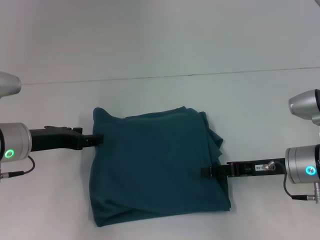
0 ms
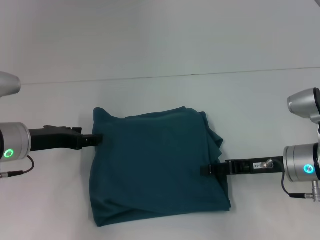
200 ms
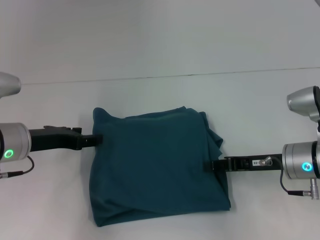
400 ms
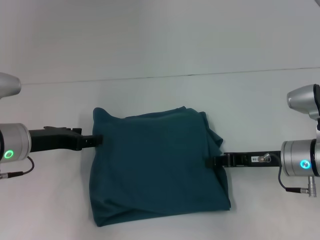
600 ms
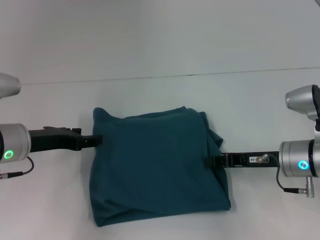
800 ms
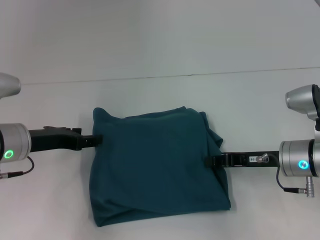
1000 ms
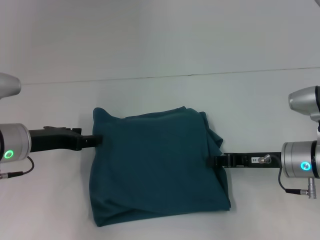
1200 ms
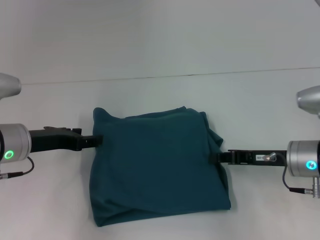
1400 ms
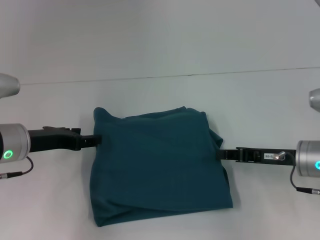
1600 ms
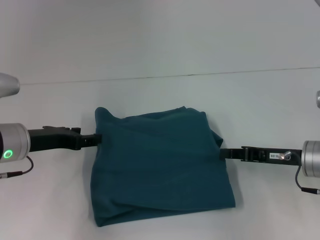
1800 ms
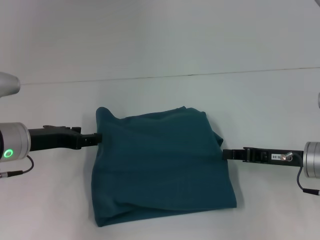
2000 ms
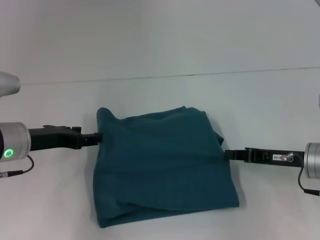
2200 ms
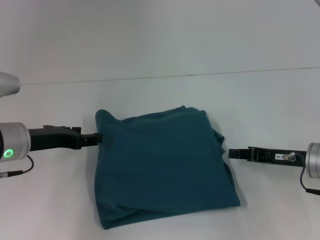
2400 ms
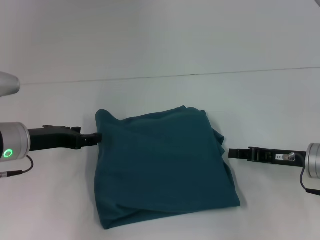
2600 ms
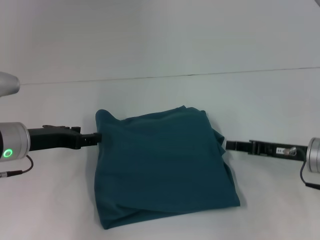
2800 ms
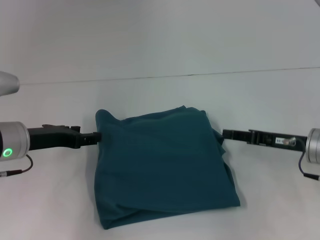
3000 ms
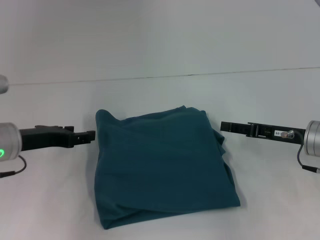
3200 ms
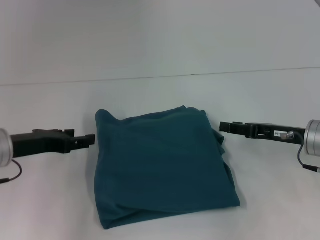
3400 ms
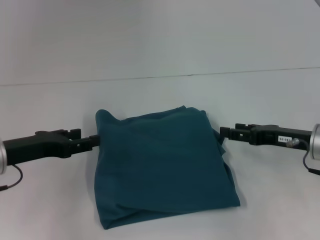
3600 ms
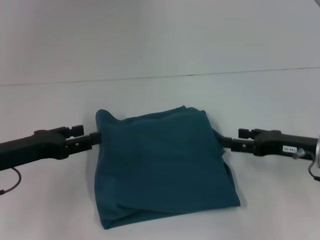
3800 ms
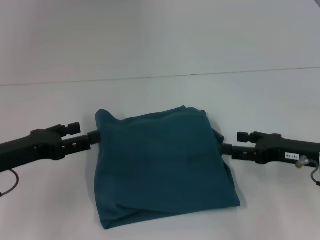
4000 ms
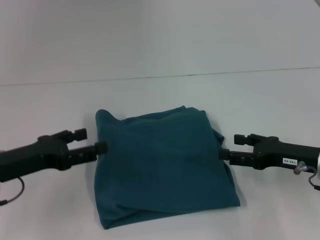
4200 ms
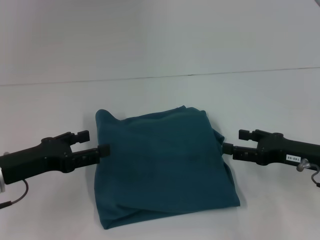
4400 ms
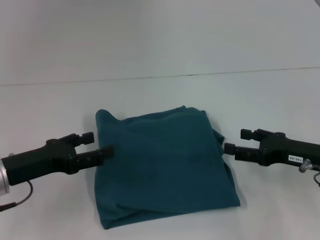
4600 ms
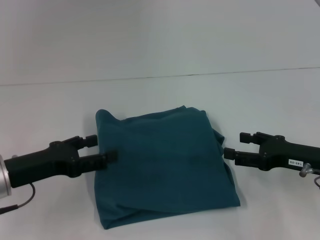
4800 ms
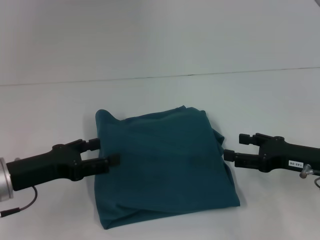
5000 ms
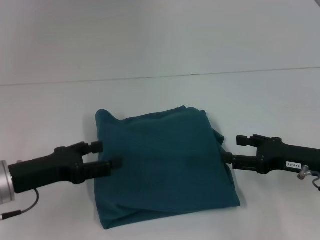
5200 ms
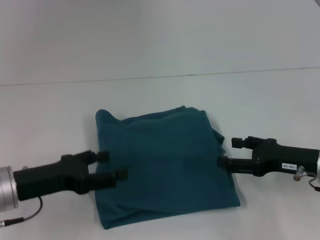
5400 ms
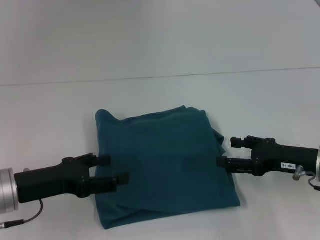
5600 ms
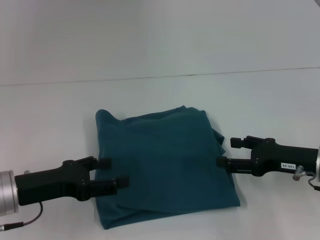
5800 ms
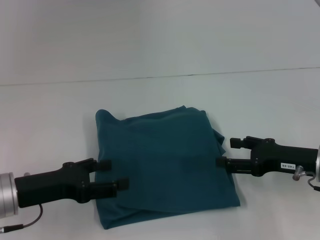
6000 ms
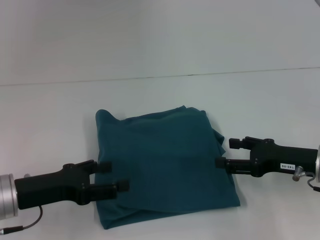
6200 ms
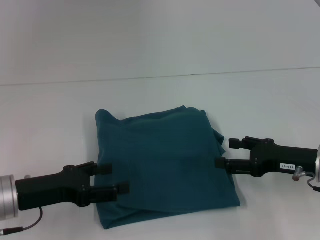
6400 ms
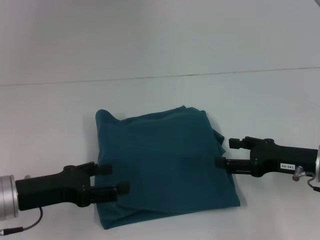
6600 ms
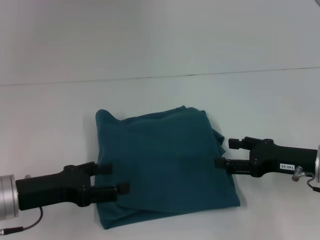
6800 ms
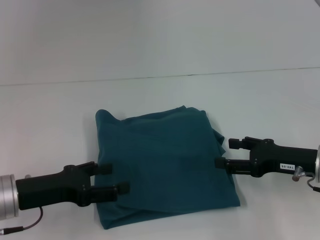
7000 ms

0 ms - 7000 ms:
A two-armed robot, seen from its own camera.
0 ms - 1400 ms: The right gripper closes up.
1400 ms - 2800 ms: The grippers stay close to where they were, moving slightly.
2800 ms - 4200 ms: The left gripper heads backward, covering some 5 cm; the right gripper opens up.
4200 ms - 5600 ms: There are only small adjustments of the grippers.
5600 ms - 7000 ms: Both grippers stay put.

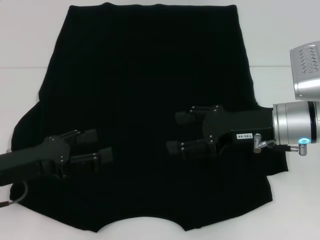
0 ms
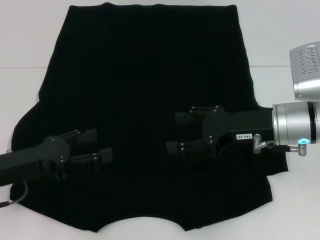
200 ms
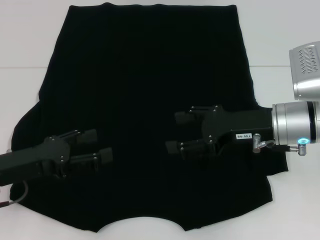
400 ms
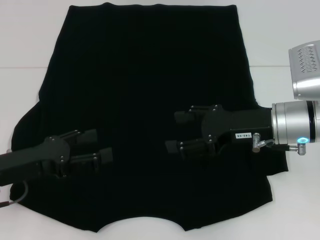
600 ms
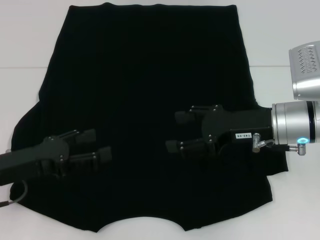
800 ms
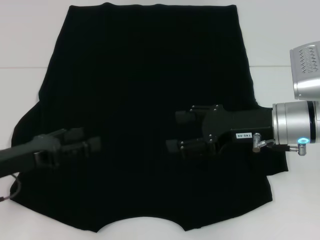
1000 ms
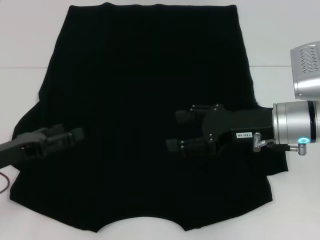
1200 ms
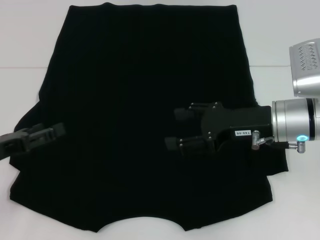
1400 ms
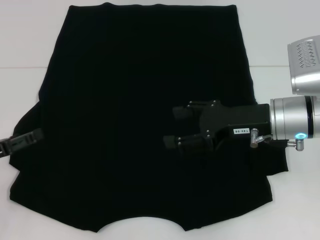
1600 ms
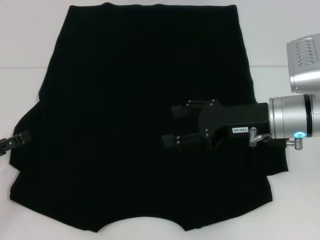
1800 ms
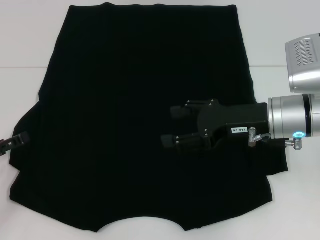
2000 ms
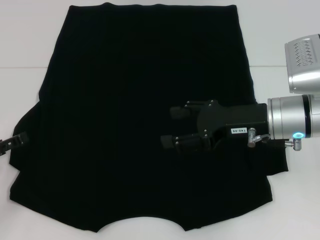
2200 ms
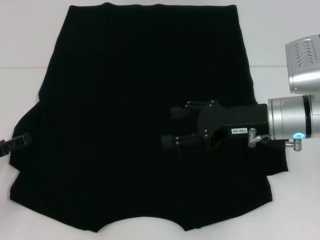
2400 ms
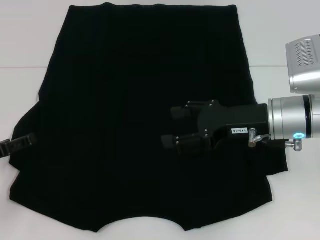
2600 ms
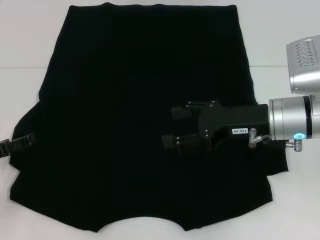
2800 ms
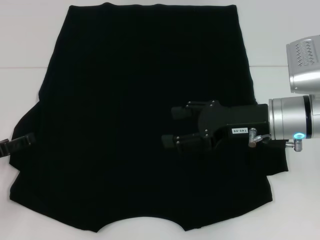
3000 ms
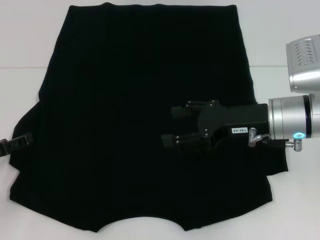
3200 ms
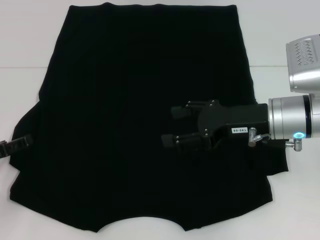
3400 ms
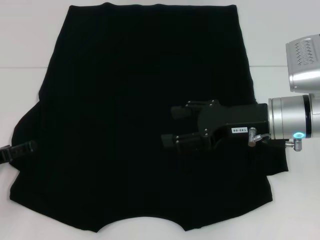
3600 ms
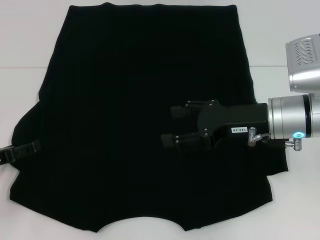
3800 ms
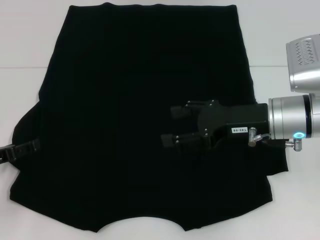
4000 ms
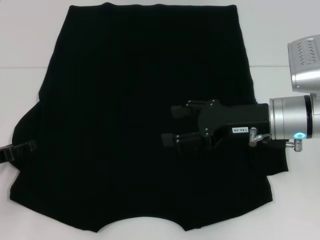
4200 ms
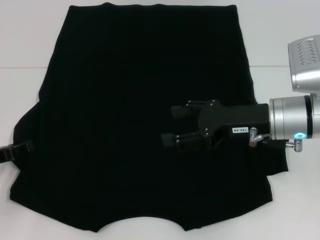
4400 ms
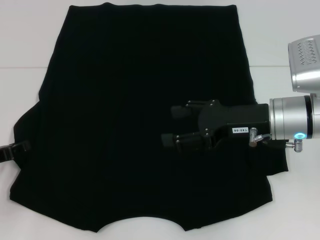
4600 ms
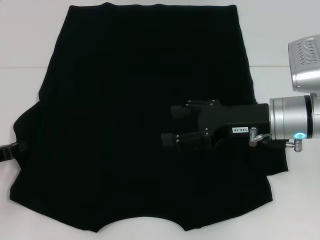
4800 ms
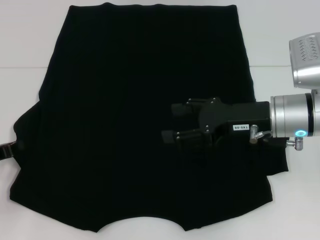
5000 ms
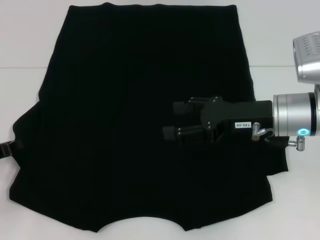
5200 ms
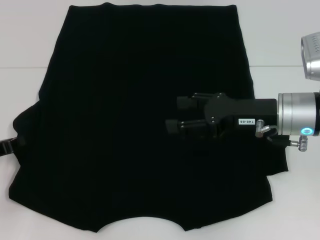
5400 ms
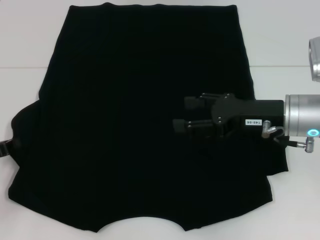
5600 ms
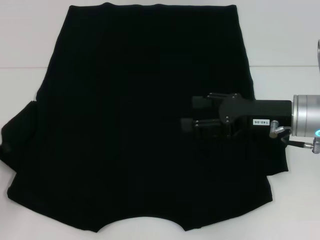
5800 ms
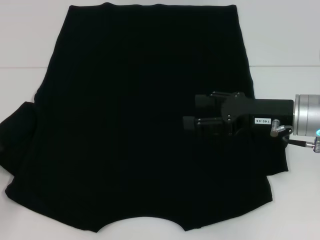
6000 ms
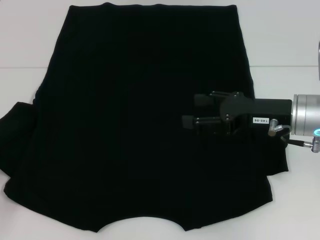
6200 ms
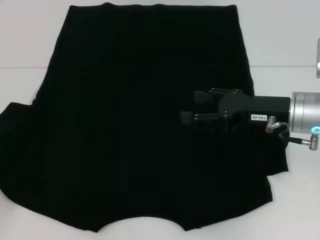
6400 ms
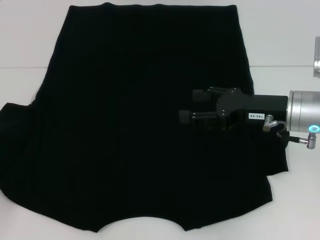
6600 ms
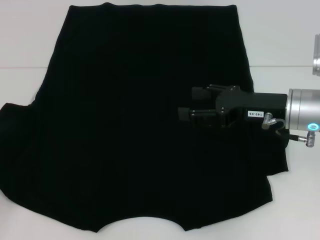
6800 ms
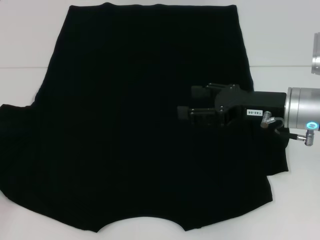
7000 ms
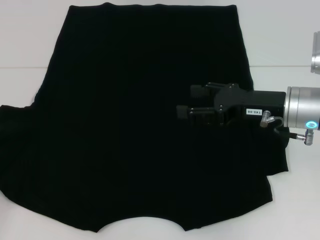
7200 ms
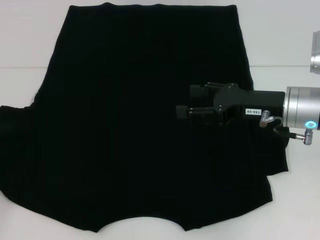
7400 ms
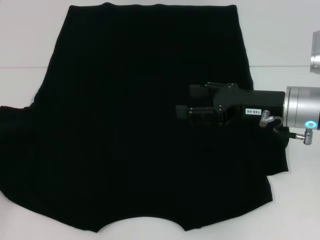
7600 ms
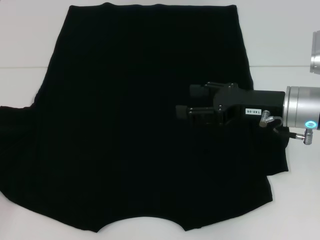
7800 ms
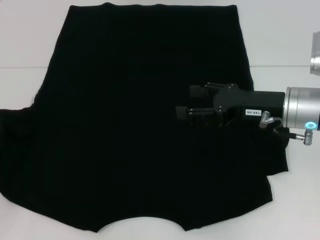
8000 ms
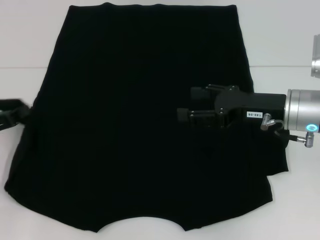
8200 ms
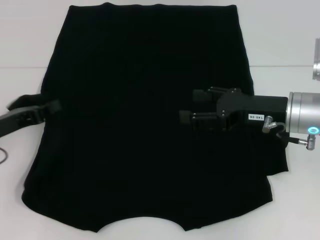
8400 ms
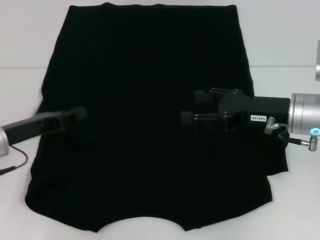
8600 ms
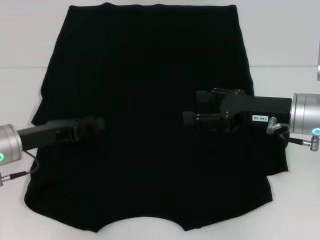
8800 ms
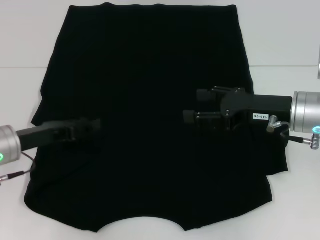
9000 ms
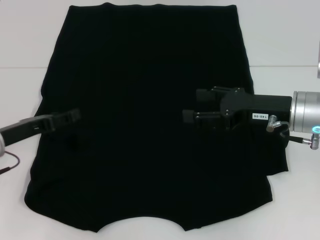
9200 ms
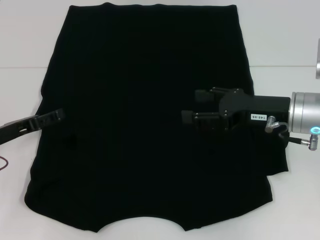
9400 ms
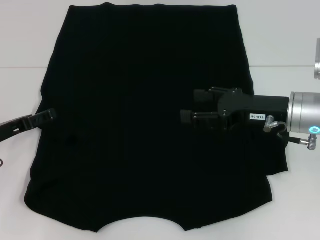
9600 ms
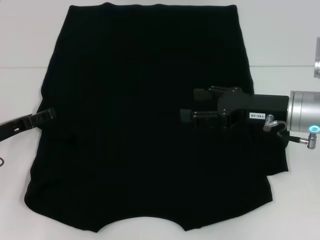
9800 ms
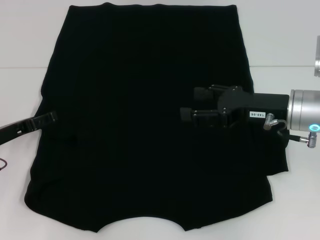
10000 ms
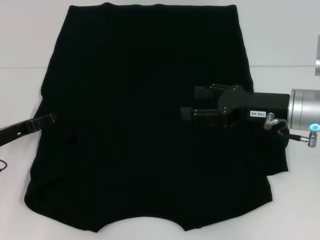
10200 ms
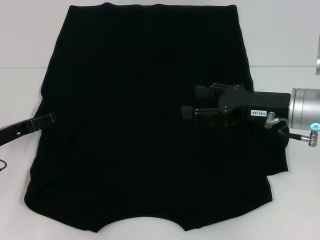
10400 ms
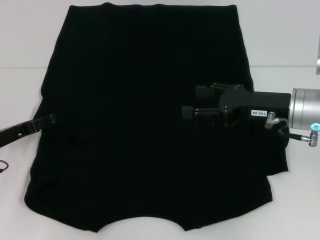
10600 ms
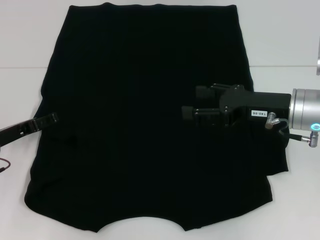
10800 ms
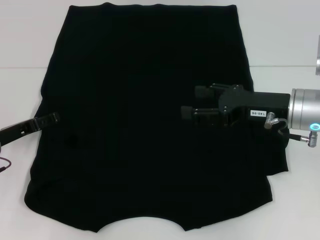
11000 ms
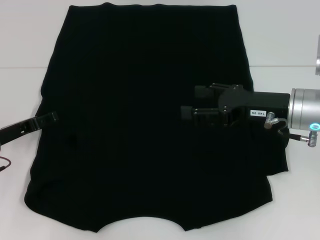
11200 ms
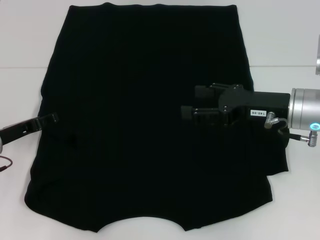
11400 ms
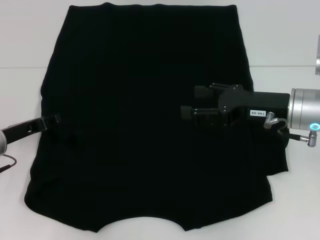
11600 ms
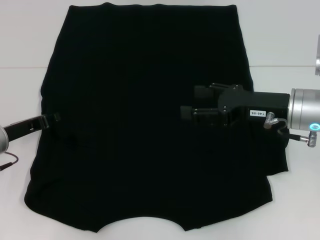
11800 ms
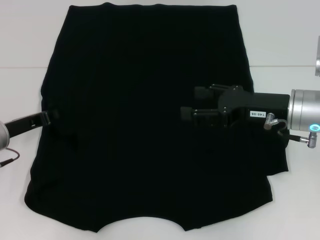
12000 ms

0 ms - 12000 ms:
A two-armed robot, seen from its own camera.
Step, 0 ms - 9000 ms: Fold the bottom left sleeve with your left hand.
0 ms - 1600 ms: The left gripper moves to the left, roughly 5 cm.
1600 ms - 3000 ms: The grippers move only a little.
3000 ms - 4400 ms: Both grippers stay about where they are.
4400 ms - 6000 ms: The left gripper closes up.
6000 ms - 7600 ms: The grippers move only a little.
7600 ms - 9000 ms: The left gripper travels to the right and forward by some 15 cm, and opens its fingers.
9000 ms - 10400 ms: The left gripper changes place by about 5 cm, and opens.
10400 ms - 12000 ms: The left gripper closes its fingers.

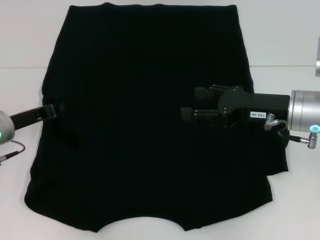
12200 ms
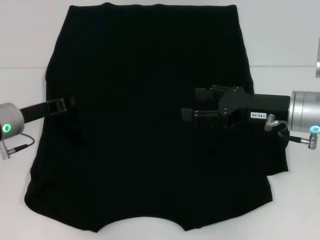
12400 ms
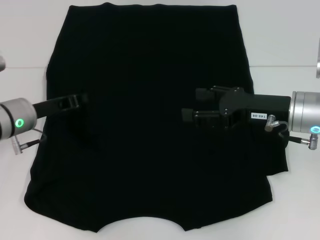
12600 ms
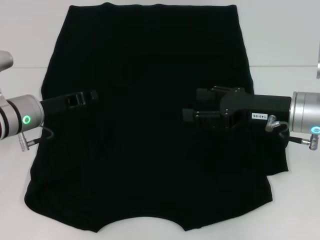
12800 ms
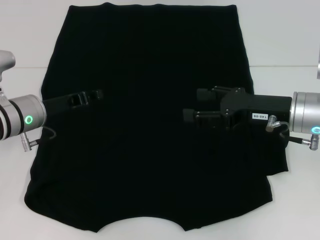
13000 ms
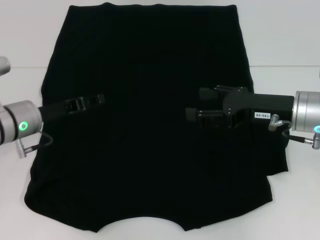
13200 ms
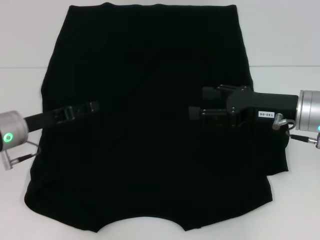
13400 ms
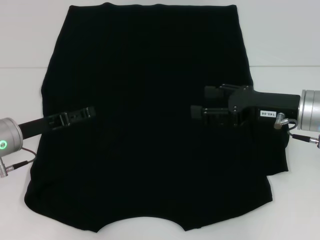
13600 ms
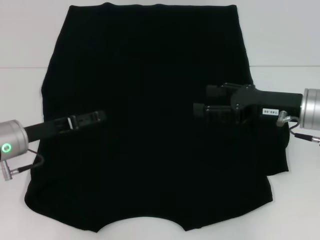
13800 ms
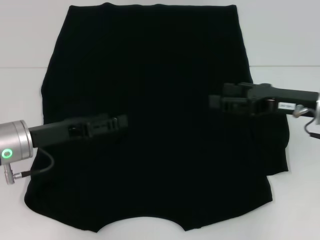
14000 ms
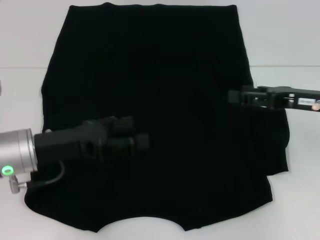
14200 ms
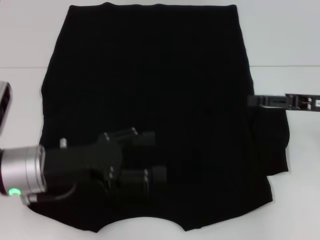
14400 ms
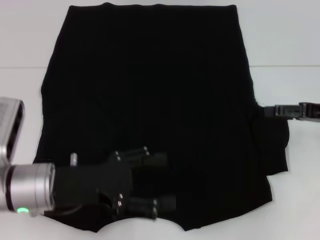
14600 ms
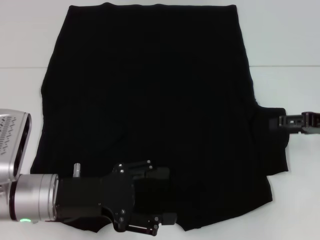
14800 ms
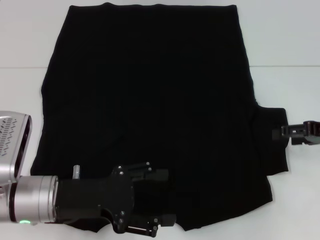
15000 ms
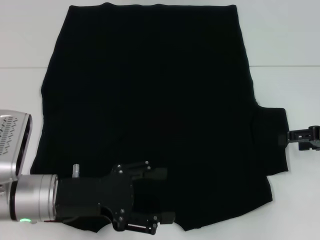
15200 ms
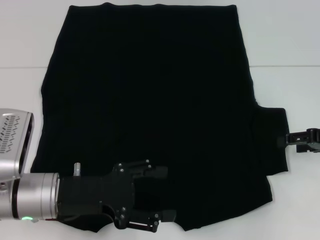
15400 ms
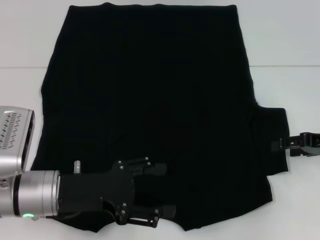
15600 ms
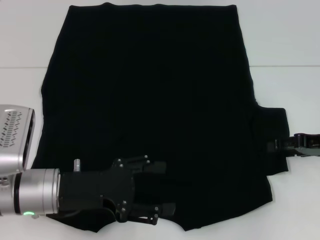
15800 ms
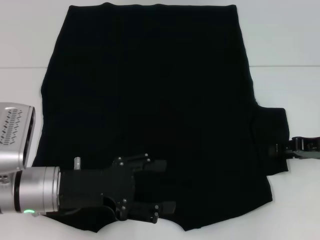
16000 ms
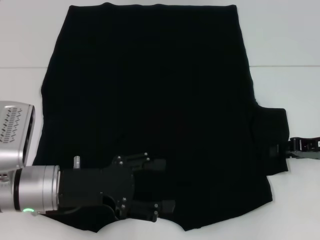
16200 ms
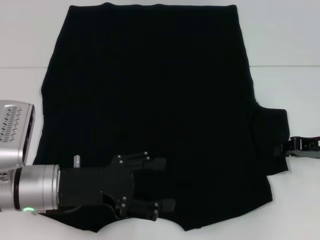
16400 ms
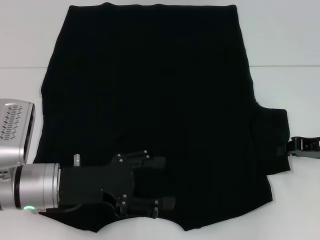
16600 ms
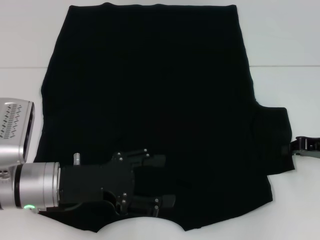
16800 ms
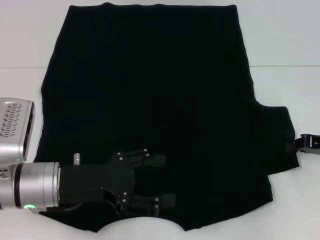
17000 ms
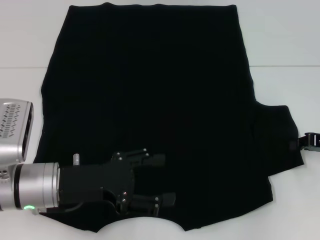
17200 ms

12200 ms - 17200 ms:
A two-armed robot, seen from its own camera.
12200 ms - 13800 ms: The left gripper opens up.
13800 ms - 15600 ms: The left gripper shifts about 10 cm backward and to the right; the right gripper goes approximately 10 cm to the right.
15600 ms - 17200 ms: The right gripper closes its fingers.
